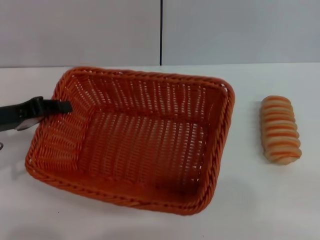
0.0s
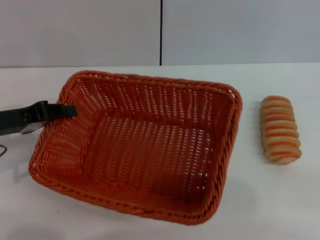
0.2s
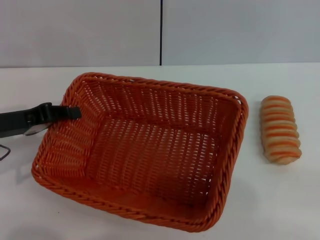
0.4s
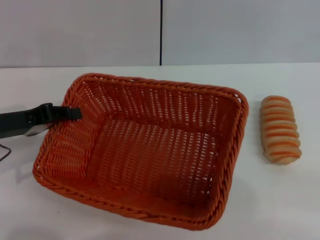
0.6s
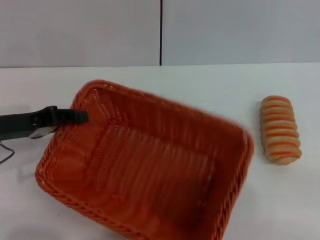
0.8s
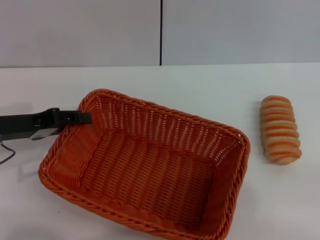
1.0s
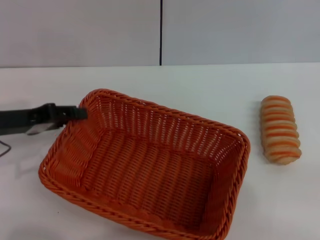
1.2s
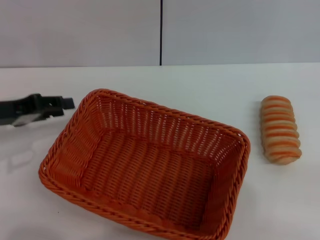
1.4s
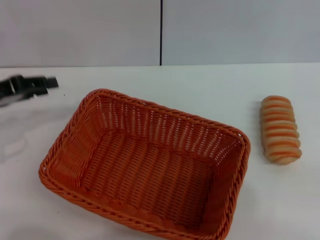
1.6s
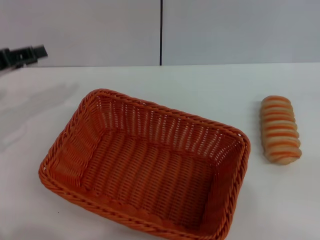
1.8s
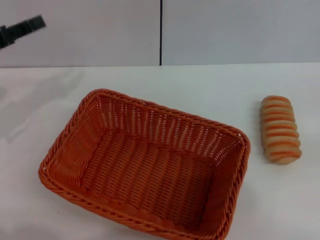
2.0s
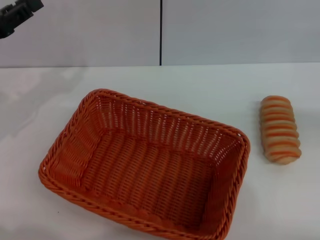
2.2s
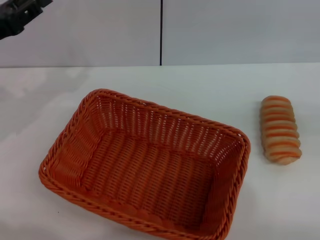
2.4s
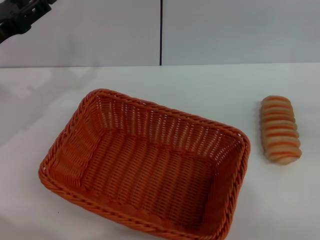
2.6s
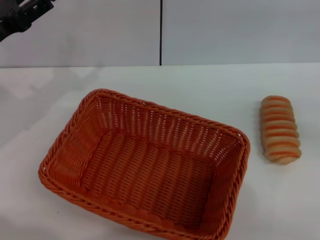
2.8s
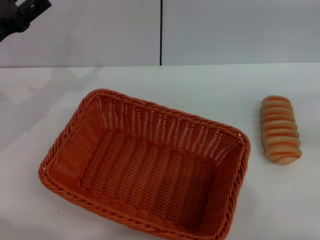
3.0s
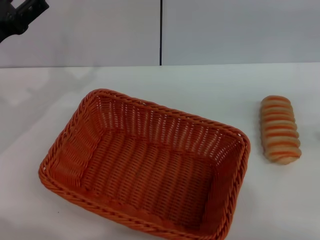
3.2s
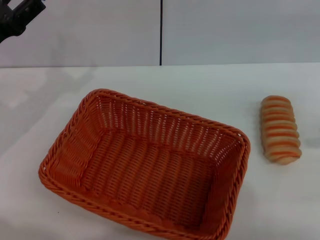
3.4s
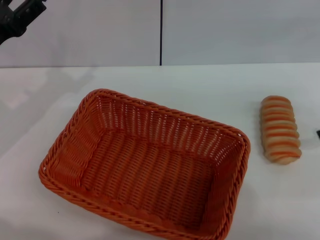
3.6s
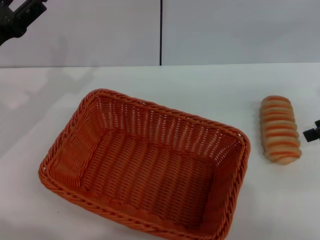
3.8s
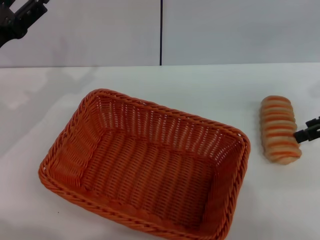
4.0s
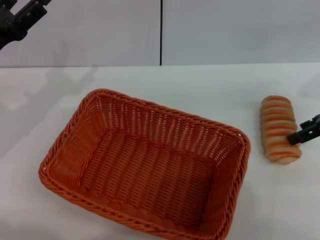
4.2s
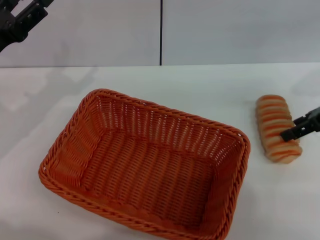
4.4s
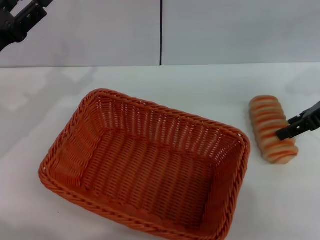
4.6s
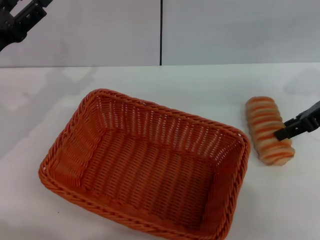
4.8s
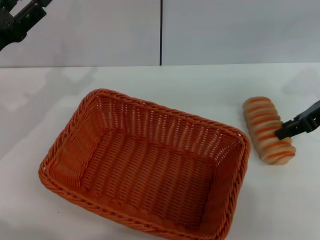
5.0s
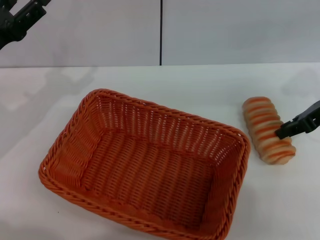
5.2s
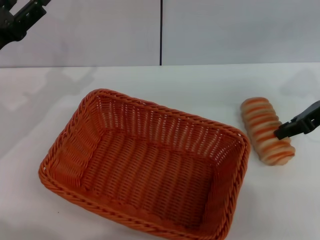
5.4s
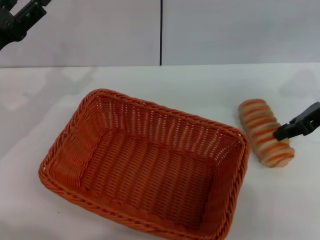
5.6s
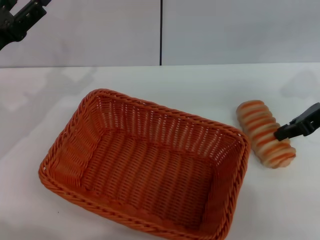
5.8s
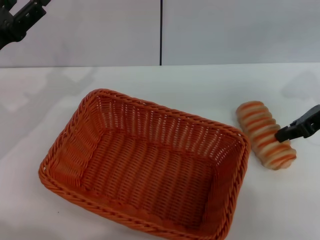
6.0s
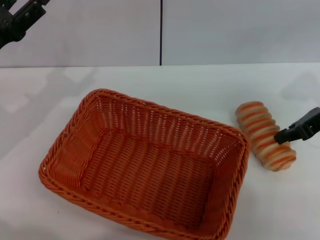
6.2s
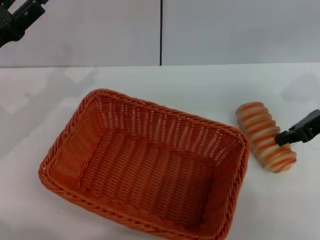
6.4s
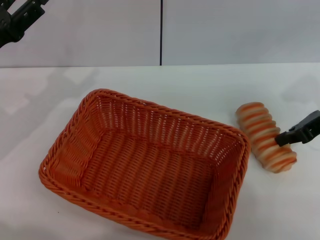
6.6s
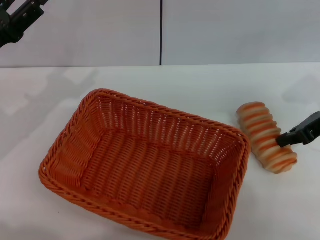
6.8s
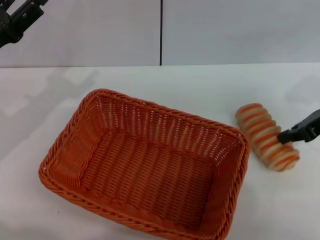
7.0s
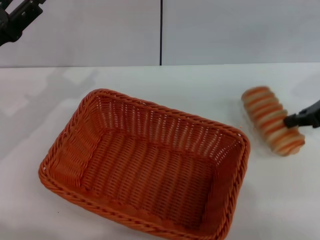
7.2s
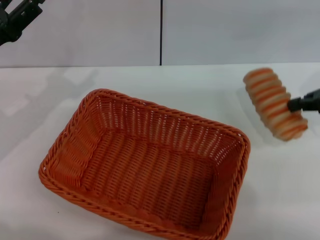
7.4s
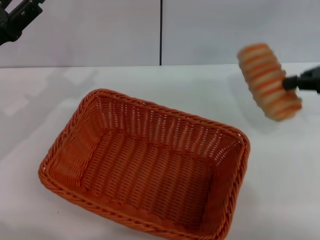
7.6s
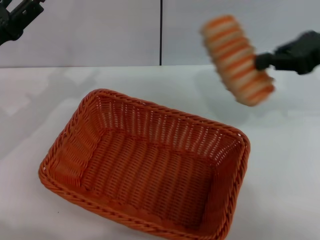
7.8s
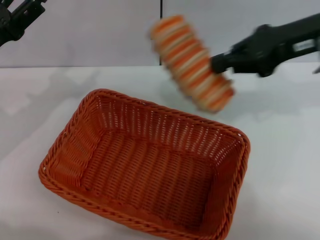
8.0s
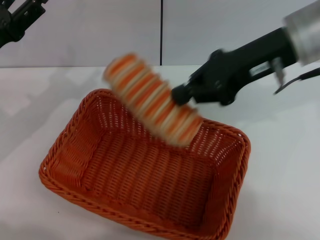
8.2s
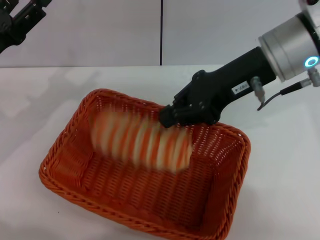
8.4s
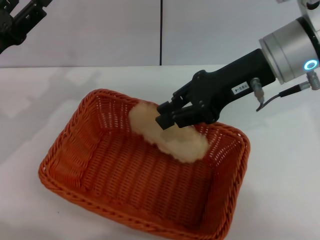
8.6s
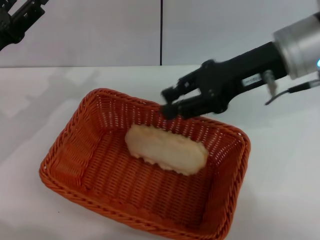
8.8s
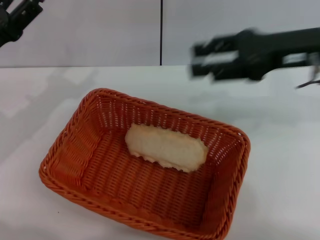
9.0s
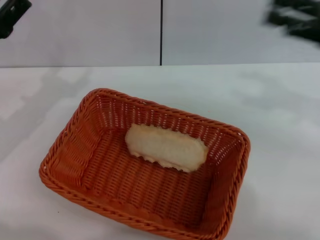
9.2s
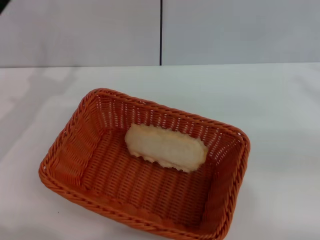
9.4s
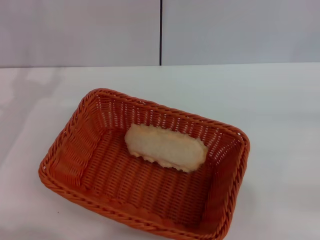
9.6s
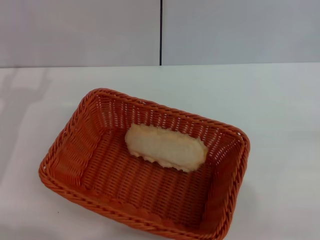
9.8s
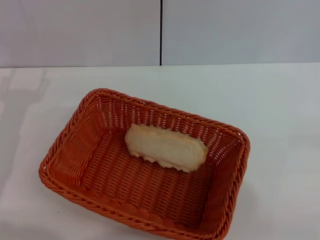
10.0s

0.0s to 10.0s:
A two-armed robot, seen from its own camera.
Step, 1.4s to 7.2s: Pick up the long bread with the right gripper.
Step, 7.4s to 8.6s: Place the long bread into the light basket with the right gripper.
0.0s to 1.4s: The left gripper opens.
1.4s to 2.8s: The right gripper travels upward by some 15 cm.
2.8s to 4.2s: The right gripper goes some 20 cm to the left, downward and forward.
4.2s to 5.8s: The right gripper closes.
5.8s to 7.2s: There are only small adjustments of the grippers.
7.2s to 8.6s: The right gripper heads to the left, covering about 15 cm.
8.6s to 10.0s: The left gripper ends up some 5 cm from where it was. Meanwhile the right gripper shifts approximately 35 cm to the right, backward and downward, and opens its fingers.
